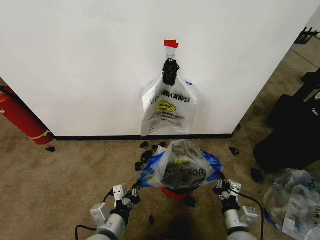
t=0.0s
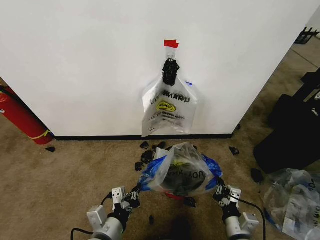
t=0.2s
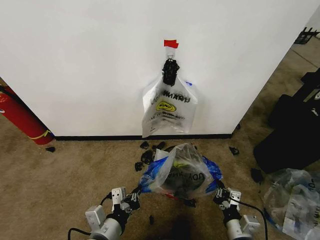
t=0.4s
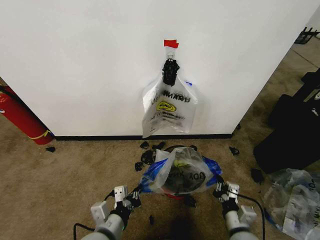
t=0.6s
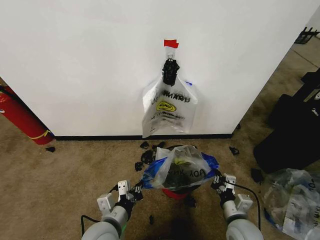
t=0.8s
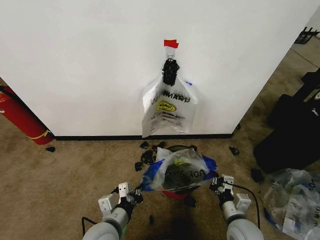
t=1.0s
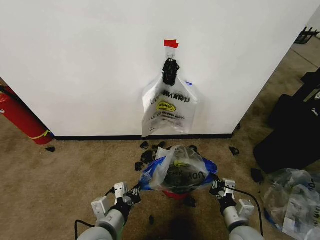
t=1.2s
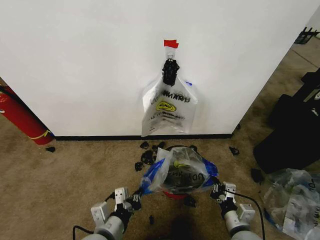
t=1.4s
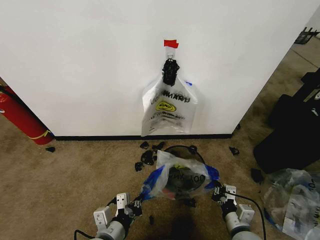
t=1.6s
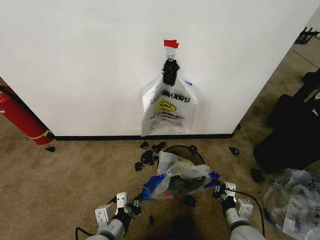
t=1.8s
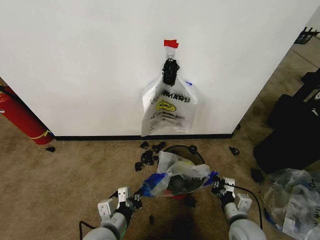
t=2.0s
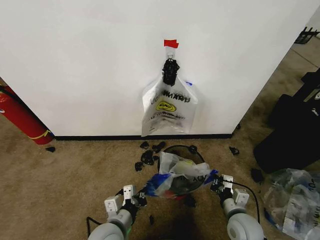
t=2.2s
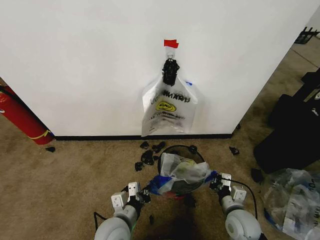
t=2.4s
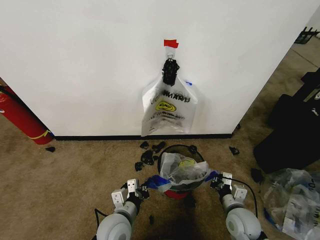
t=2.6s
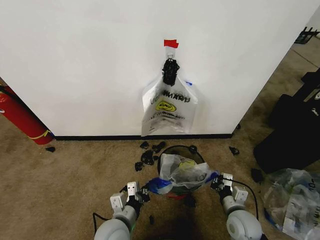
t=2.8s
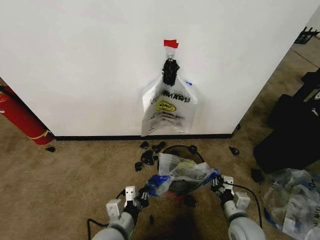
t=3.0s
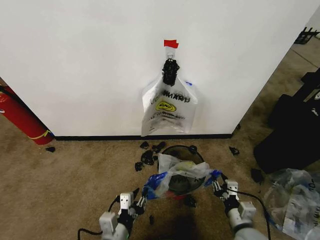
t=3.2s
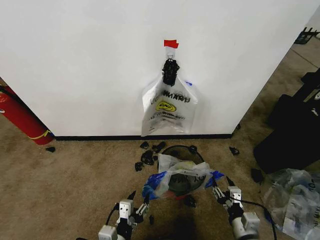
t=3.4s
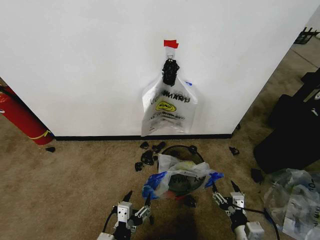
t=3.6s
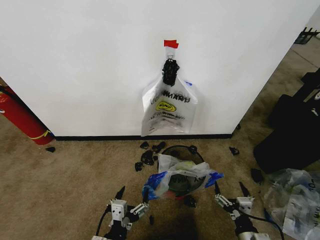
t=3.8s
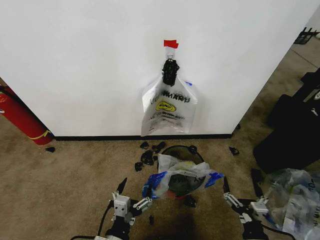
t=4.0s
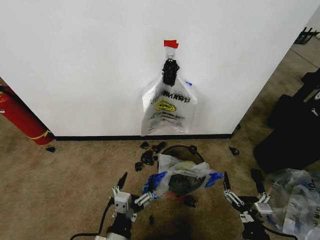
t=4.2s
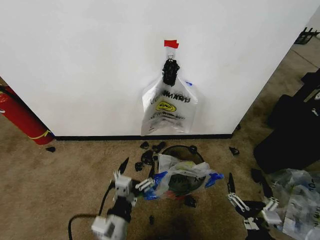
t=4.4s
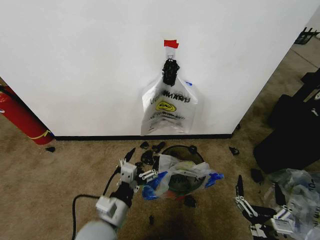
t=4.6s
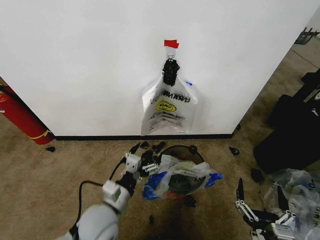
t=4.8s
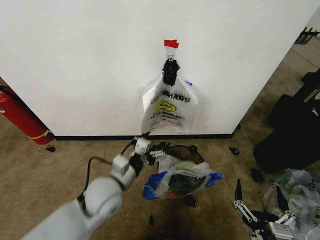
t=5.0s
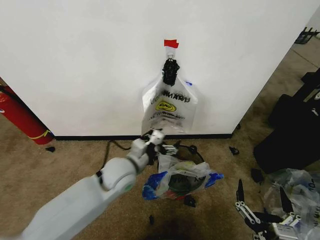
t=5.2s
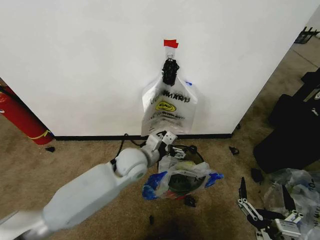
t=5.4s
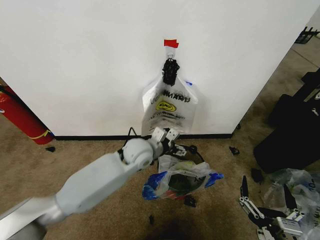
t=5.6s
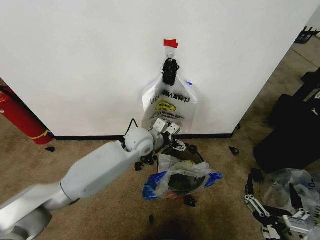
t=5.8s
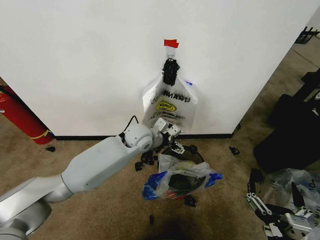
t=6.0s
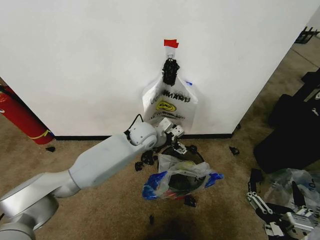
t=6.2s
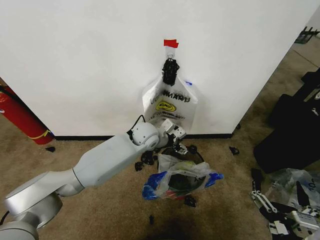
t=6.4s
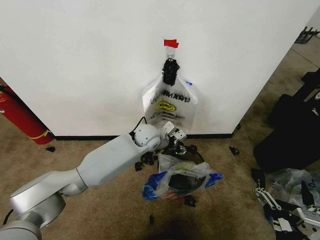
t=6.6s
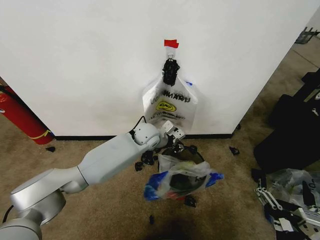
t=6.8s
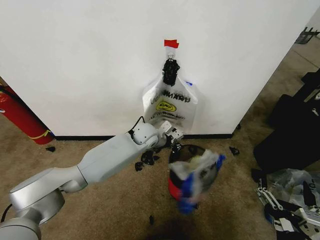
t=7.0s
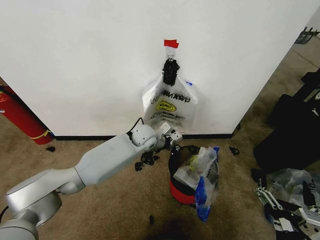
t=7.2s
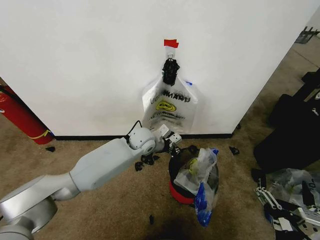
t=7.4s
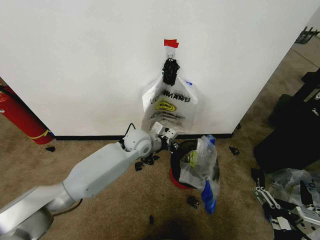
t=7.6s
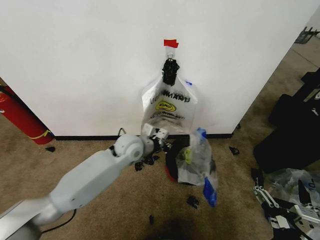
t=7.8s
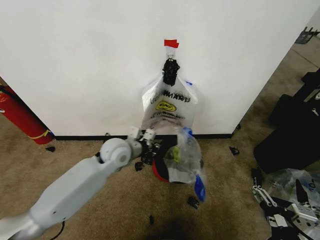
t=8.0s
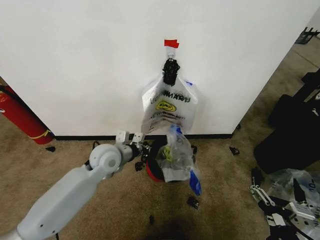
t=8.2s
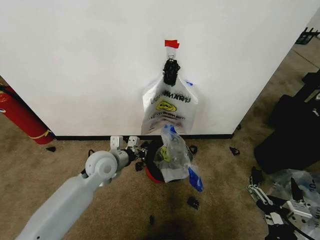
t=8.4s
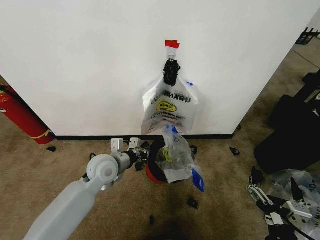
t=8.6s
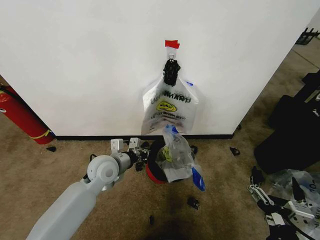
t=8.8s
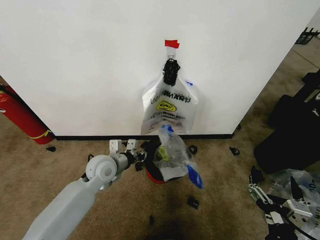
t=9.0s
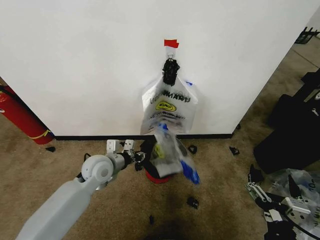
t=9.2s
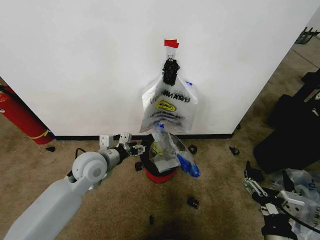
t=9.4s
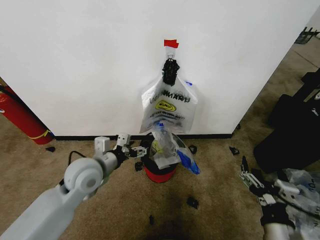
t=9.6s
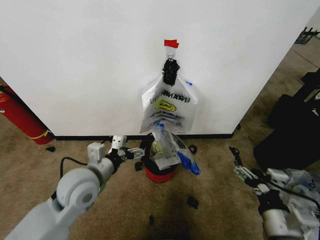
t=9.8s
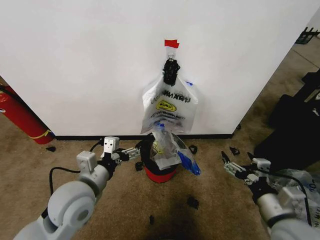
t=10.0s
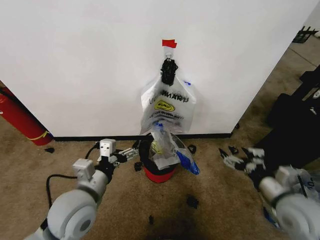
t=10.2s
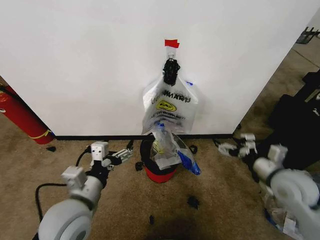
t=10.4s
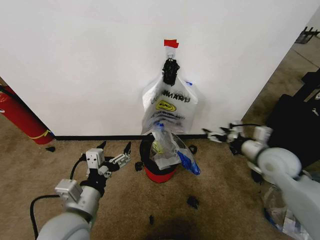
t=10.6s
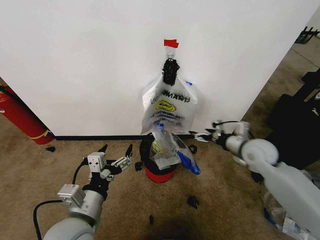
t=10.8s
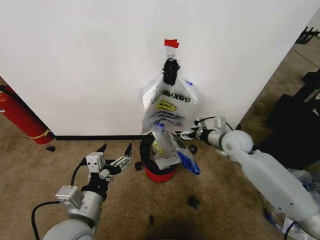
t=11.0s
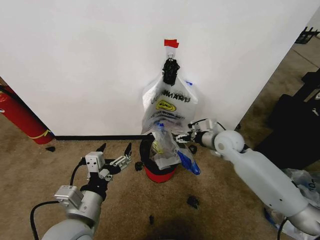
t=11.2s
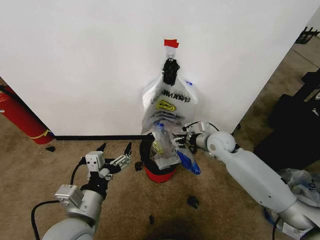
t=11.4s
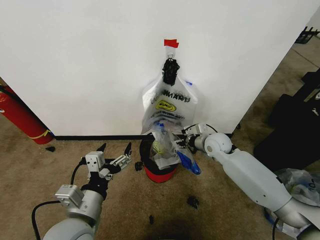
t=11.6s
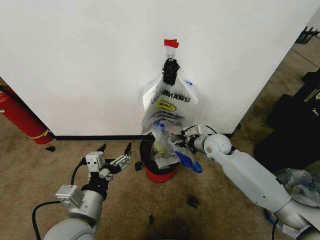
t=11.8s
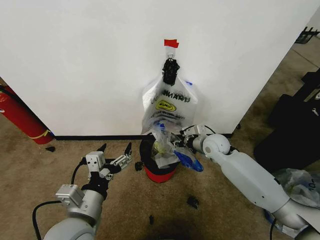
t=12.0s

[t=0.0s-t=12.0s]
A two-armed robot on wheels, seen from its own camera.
Task of the whole recording: Pick up the garbage bag from the wall and place it over the trash bin.
t=0.0s to t=1.6s: The grippers make only small movements.
t=3.0s to t=4.4s: The left gripper travels backward and back again, approximately 10 cm each way, and opens up, while the right gripper shifts approximately 15 cm backward, and opens up.
t=4.4s to t=6.0s: The left gripper moves forward, approximately 30 cm, while the right gripper is displaced upward by some 5 cm.
t=6.0s to t=7.6s: The left gripper closes its fingers.
t=7.6s to t=9.0s: The left gripper shifts roughly 15 cm to the left and backward.
t=9.0s to t=10.4s: The right gripper goes roughly 25 cm forward and to the right; the left gripper travels backward and upward by approximately 20 cm, and opens its fingers.
t=10.4s to t=12.0s: The right gripper shifts approximately 25 cm forward and to the left, and closes its fingers.

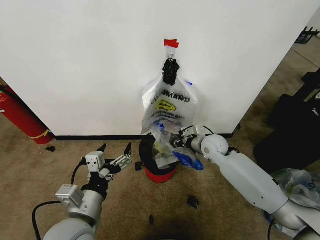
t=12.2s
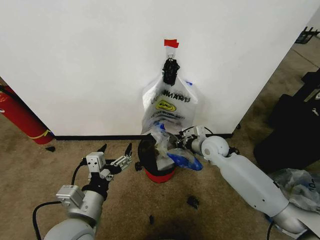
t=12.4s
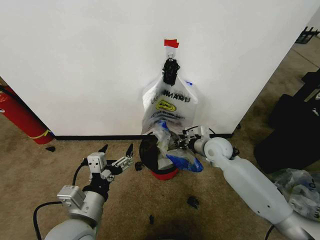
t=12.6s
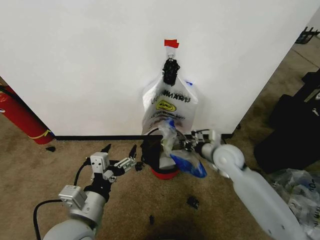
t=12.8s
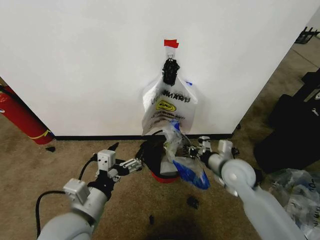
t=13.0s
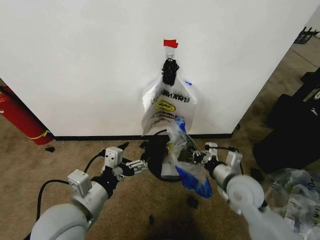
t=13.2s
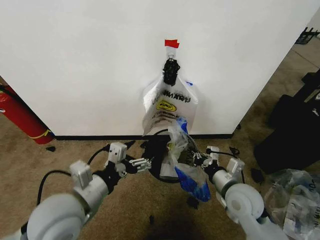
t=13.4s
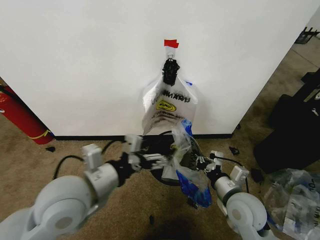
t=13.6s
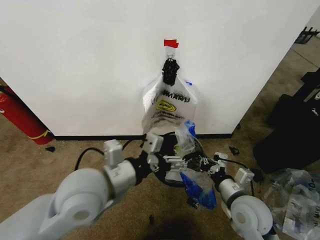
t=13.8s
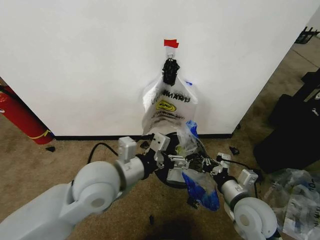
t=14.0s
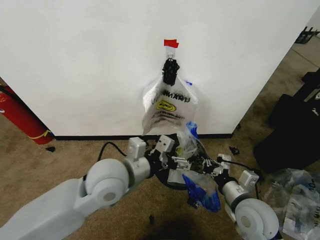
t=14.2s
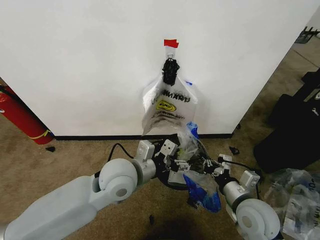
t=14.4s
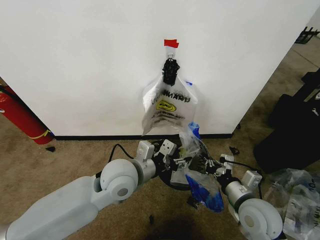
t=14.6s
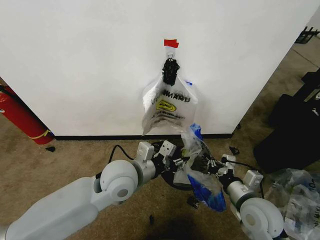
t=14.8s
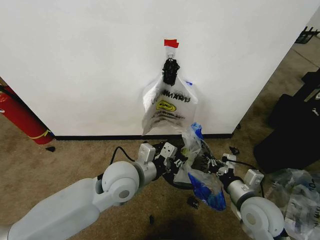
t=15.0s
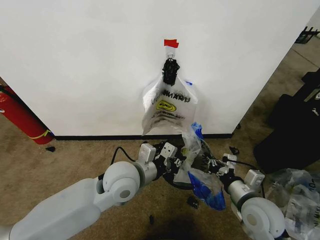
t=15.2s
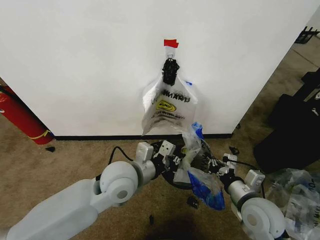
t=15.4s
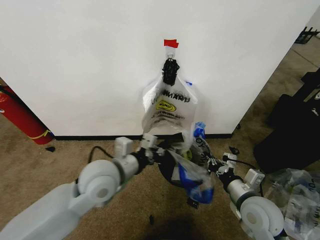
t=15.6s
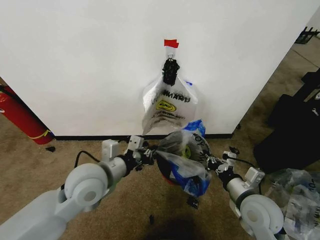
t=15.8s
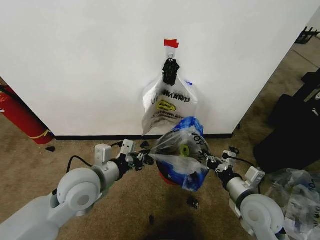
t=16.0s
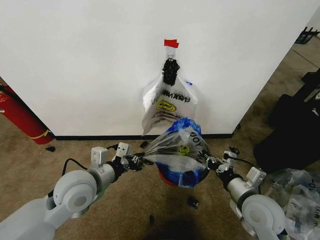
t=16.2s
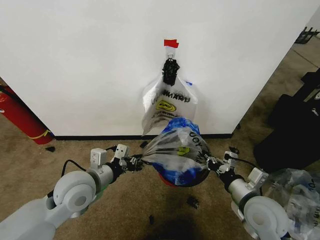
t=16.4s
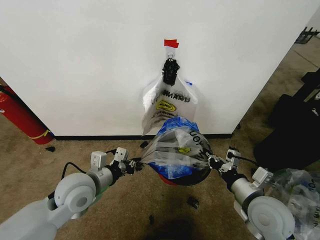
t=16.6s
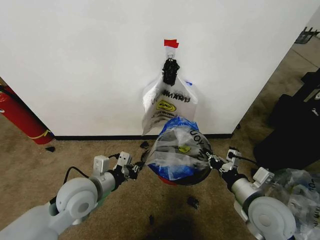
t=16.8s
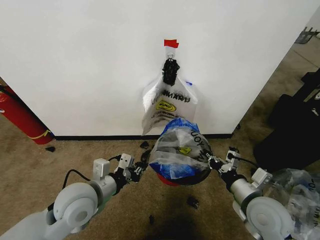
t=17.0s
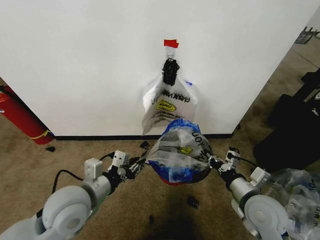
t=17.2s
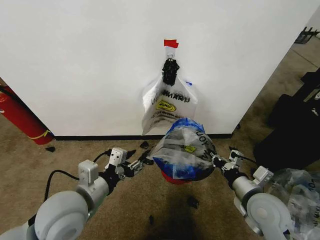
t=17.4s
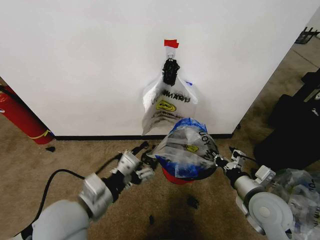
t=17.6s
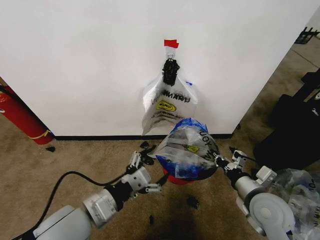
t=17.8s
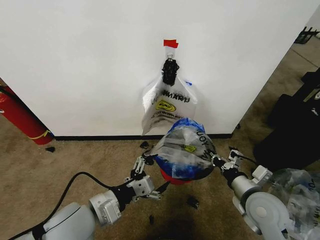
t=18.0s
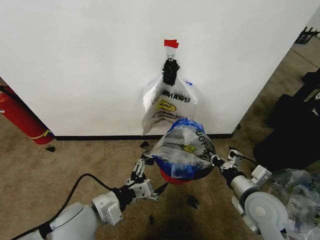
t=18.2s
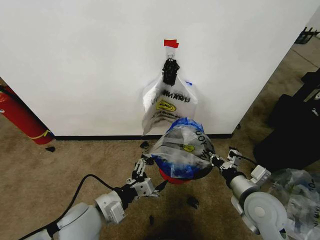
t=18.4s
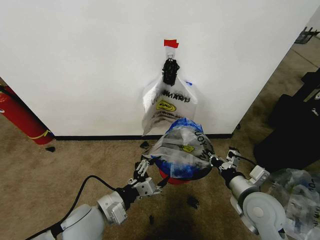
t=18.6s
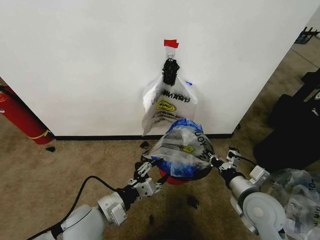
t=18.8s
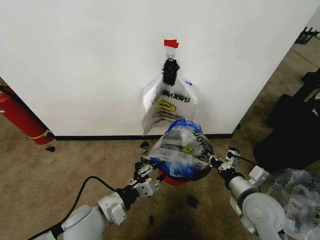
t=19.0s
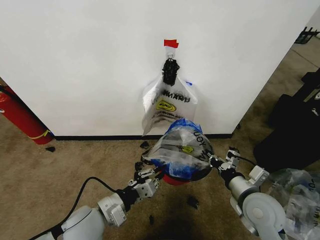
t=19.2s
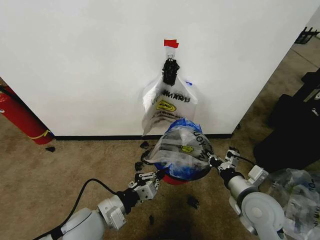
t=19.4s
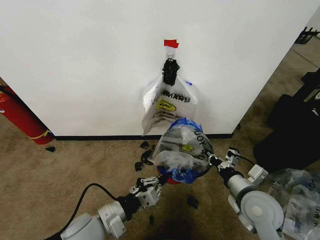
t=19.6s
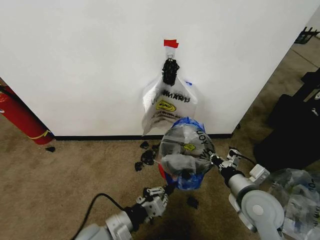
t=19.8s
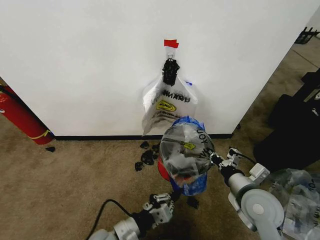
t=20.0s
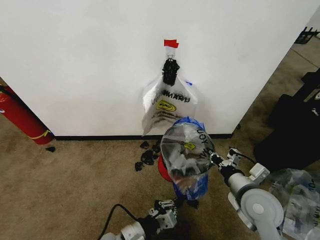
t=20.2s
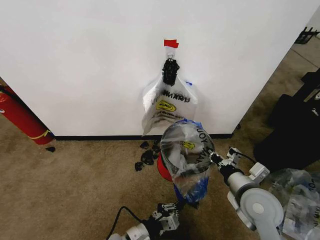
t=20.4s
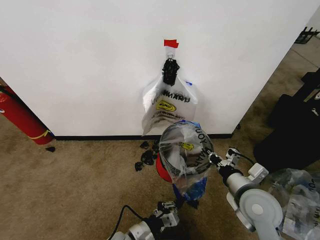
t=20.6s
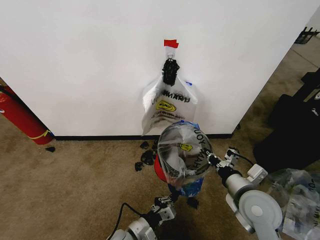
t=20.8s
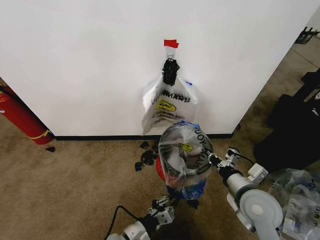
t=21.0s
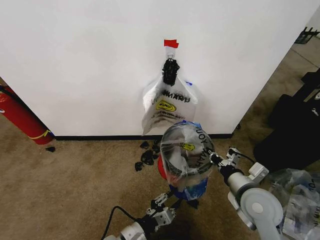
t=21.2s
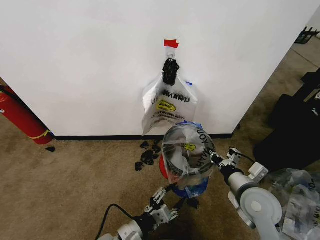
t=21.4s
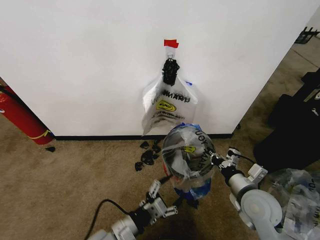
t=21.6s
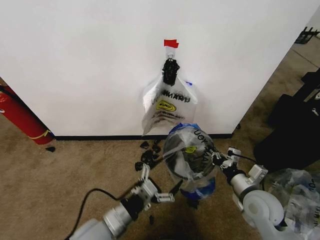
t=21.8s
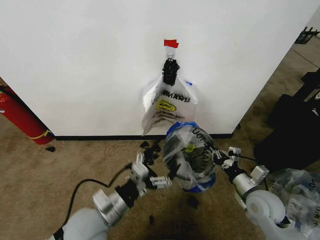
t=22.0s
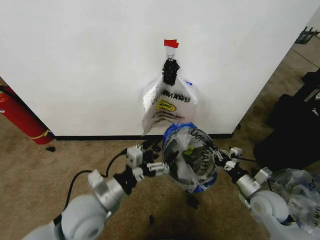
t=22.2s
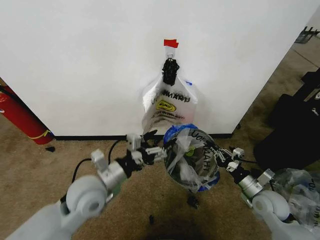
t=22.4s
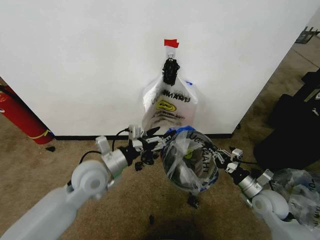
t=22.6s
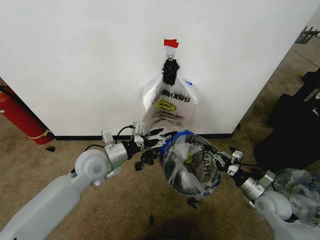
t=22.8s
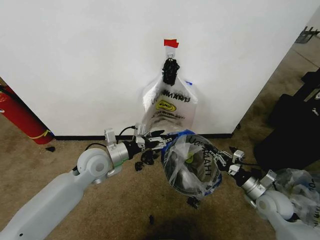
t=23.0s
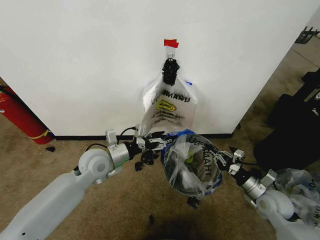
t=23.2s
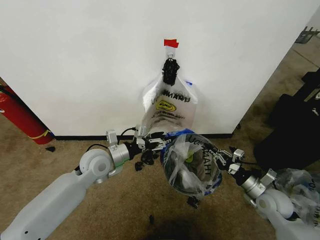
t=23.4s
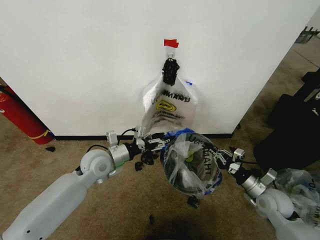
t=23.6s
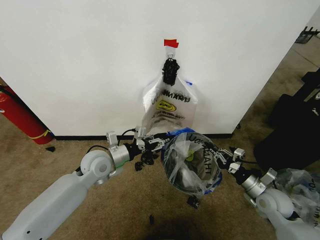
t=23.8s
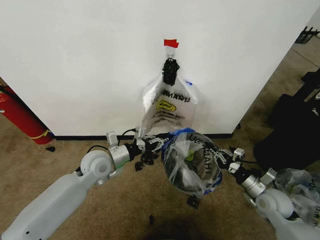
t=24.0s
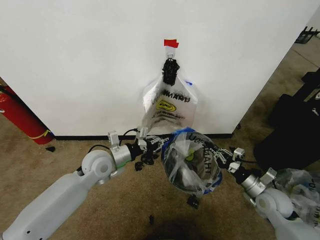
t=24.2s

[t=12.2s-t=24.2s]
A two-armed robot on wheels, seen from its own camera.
Task of the whole recording: Pick up the garbage bag from the wall and place it over the trash bin.
t=12.2s to t=13.8s: The right gripper heads backward, covering approximately 25 cm. The left gripper travels upward and forward by roughly 10 cm.
t=13.8s to t=15.2s: The left gripper is displaced downward and forward by roughly 10 cm, and closes its fingers.
t=15.2s to t=16.6s: The left gripper shifts roughly 10 cm to the left.
t=16.6s to t=18.2s: The left gripper heads backward, covering about 5 cm, and opens up.
t=18.2s to t=19.8s: The left gripper goes approximately 5 cm downward, and closes its fingers.
t=19.8s to t=21.2s: The left gripper moves downward, some 5 cm.
t=21.2s to t=22.6s: The left gripper heads forward and upward, covering about 25 cm, and opens up. The right gripper is displaced downward and to the right by some 15 cm.
t=22.6s to t=24.2s: The left gripper is displaced forward by some 5 cm, and closes up.
